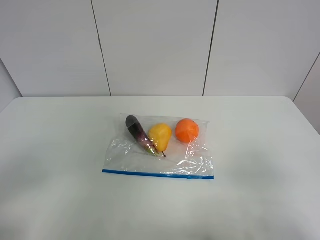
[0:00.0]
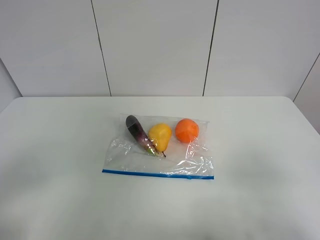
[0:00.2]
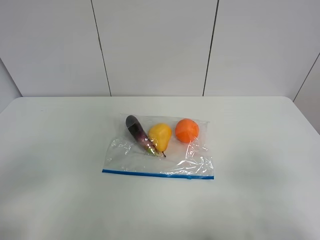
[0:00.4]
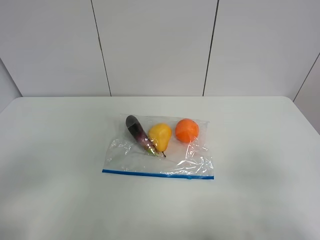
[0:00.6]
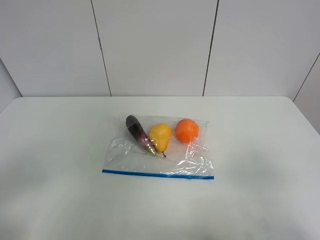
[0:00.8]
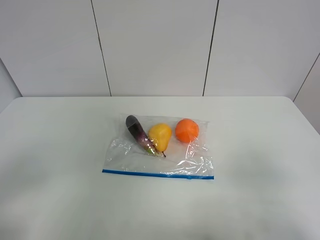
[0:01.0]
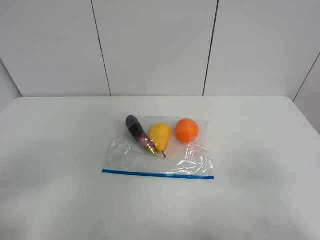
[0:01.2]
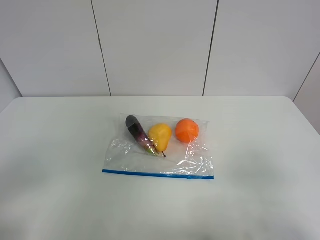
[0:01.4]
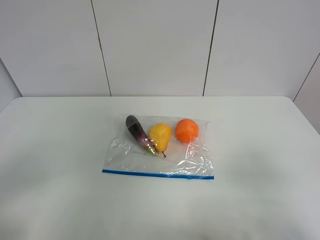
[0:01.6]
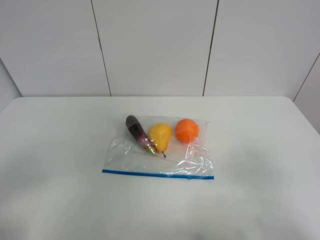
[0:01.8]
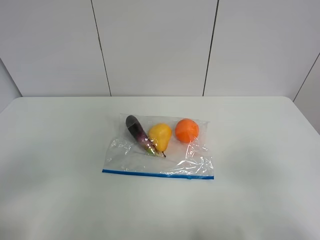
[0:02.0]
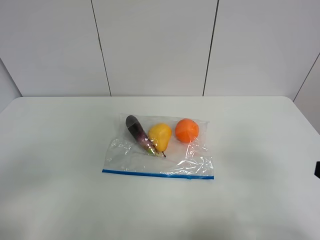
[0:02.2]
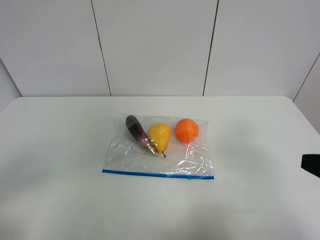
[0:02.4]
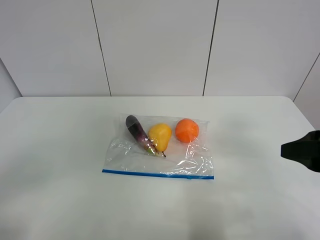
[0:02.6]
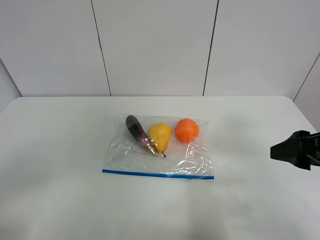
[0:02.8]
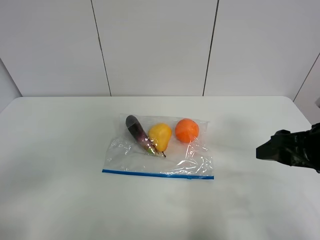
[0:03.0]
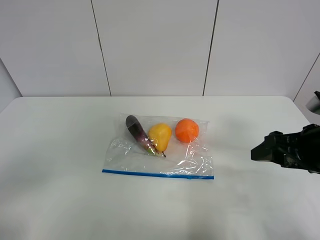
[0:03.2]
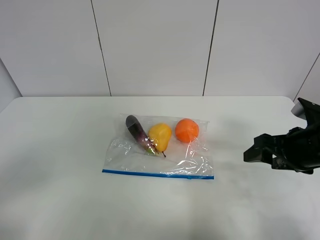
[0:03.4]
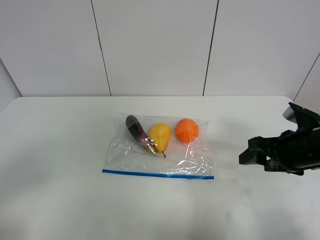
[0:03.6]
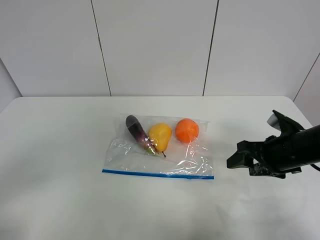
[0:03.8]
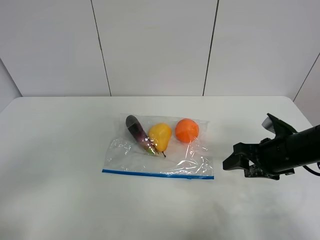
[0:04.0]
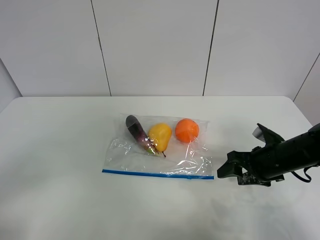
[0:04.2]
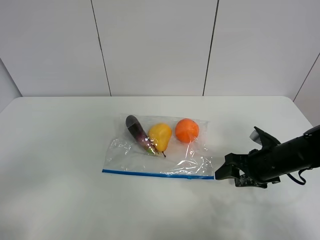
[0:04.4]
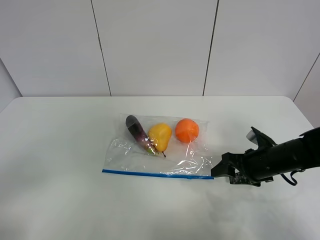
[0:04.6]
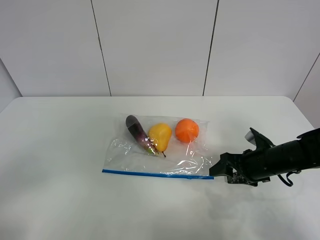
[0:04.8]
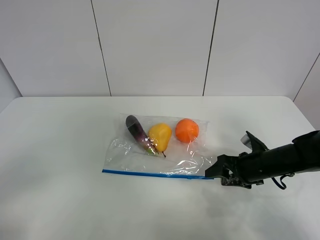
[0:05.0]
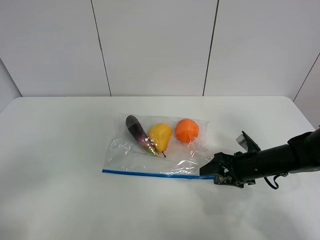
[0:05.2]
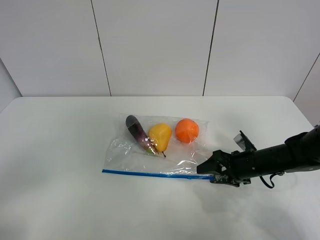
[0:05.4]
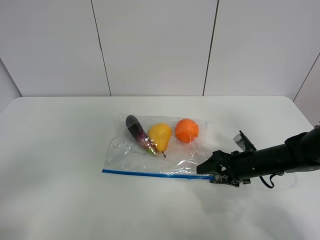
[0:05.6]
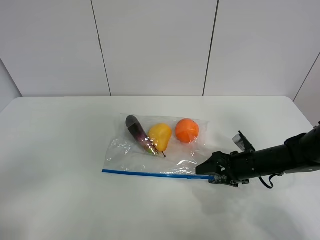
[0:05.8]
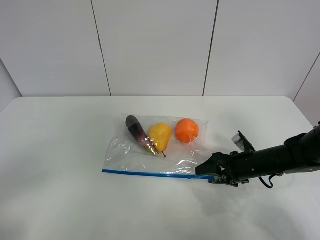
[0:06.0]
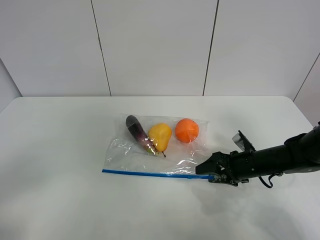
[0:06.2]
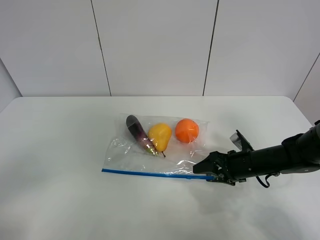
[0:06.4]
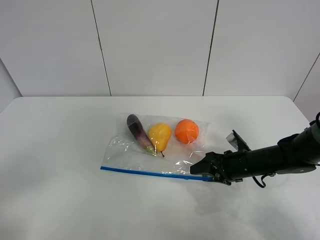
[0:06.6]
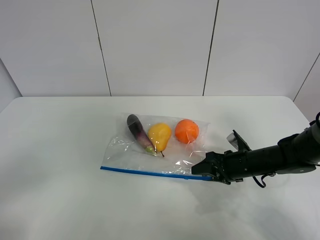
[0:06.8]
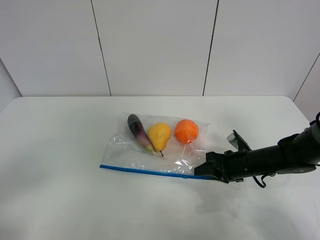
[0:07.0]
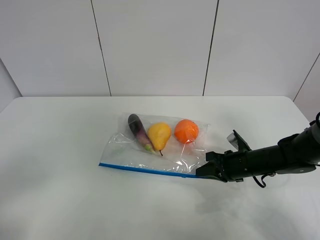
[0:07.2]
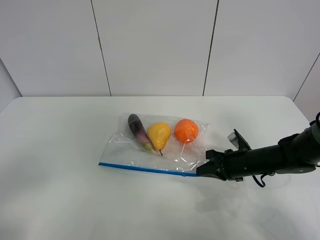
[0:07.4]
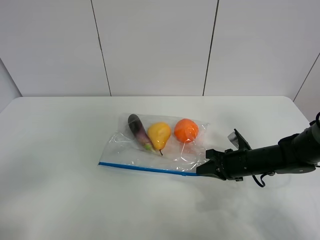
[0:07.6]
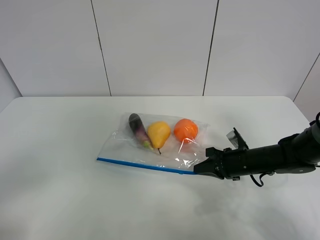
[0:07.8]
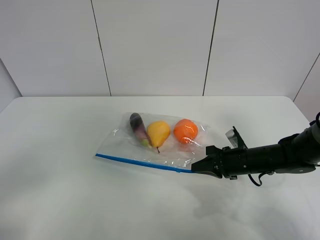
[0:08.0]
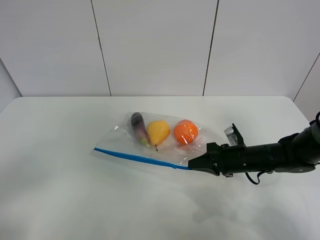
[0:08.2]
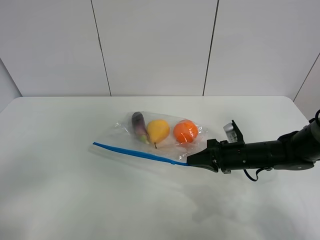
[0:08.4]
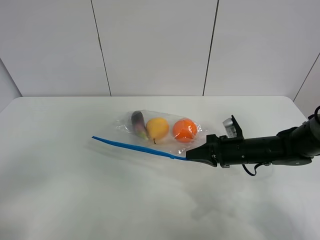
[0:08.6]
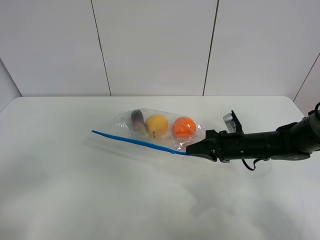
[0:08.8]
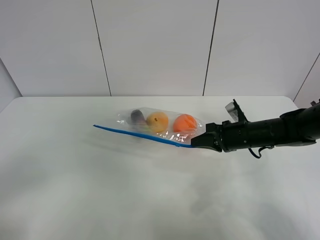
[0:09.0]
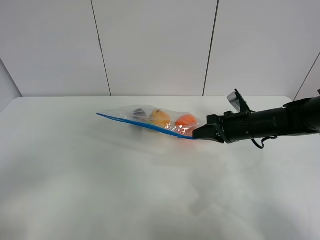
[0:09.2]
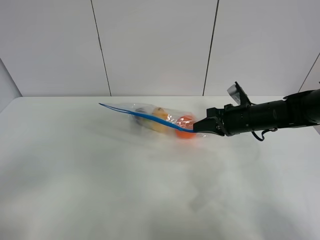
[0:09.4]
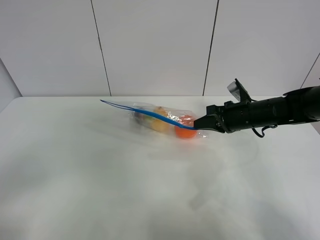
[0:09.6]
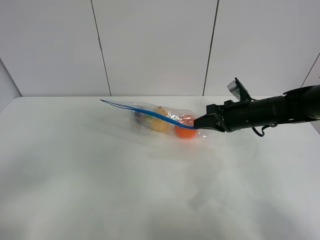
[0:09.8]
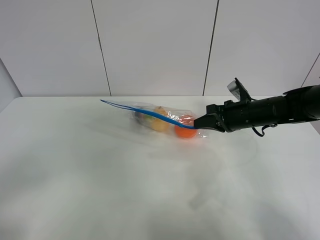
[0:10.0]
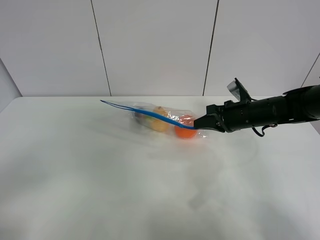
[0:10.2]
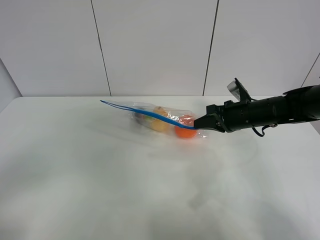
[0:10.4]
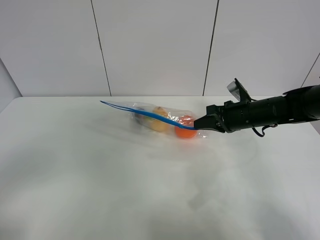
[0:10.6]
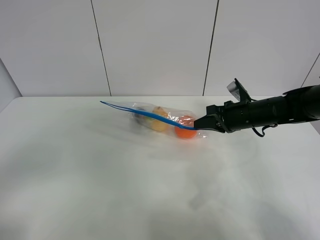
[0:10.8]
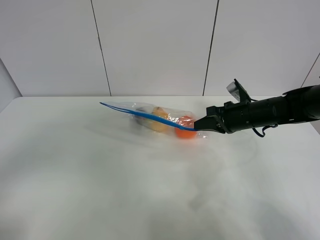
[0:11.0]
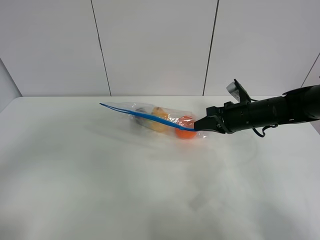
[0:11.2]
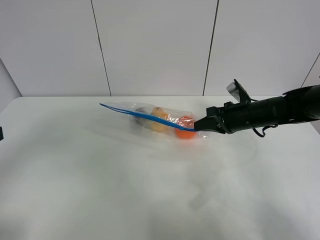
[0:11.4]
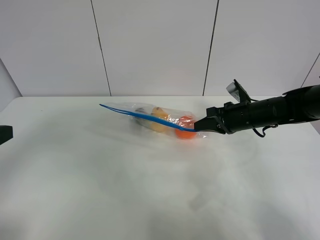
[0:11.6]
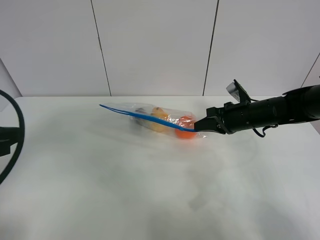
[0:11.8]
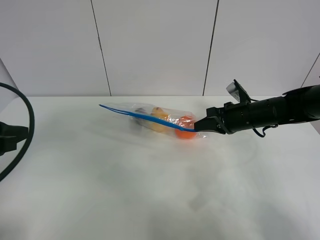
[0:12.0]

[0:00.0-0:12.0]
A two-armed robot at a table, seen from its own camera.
Step, 0:00.0 to 0:07.2: Grasp the fruit bag with right gripper.
Step, 0:07.4 to 0:09.8: Lift the fruit bag with your right gripper.
0:00.0 to 0:01.6: Both grippers stay put.
0:01.6 to 0:03.0: The right gripper heads forward, covering some 15 cm.
0:03.0 to 0:04.4: The right gripper shifts approximately 15 cm downward and forward.
0:04.4 to 0:06.0: The right gripper changes place by some 5 cm.
0:06.0 to 0:07.6: The right gripper closes up.
0:07.6 to 0:09.0: The right gripper moves upward, roughly 5 cm.
0:09.0 to 0:10.4: The grippers move only a little.
0:10.4 to 0:12.0: The left gripper heads forward, covering approximately 15 cm.

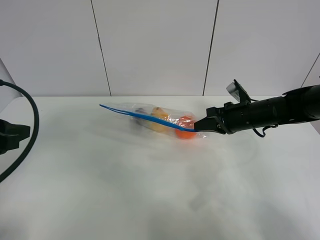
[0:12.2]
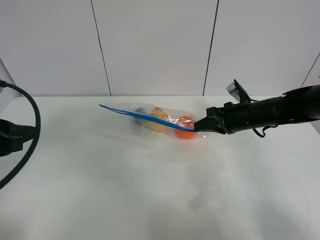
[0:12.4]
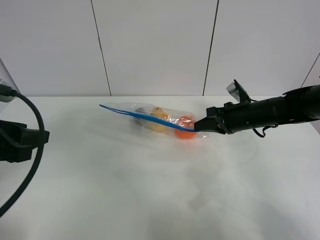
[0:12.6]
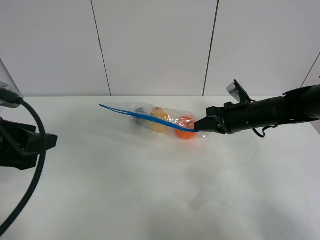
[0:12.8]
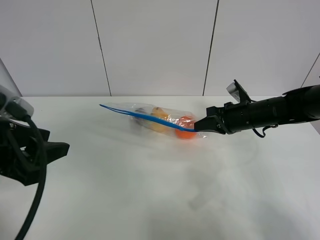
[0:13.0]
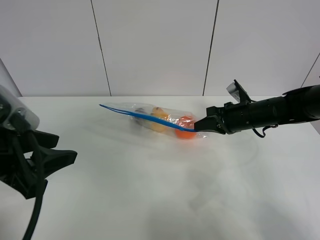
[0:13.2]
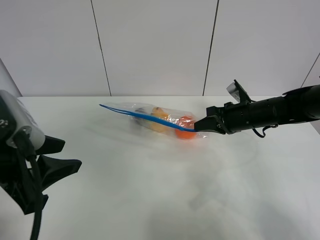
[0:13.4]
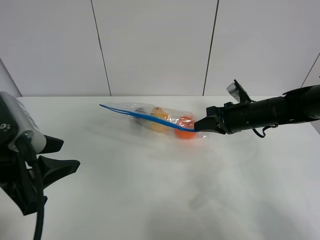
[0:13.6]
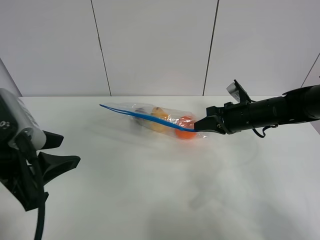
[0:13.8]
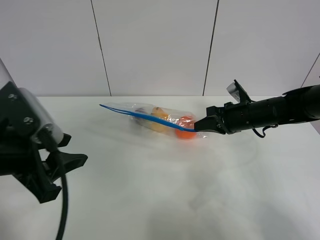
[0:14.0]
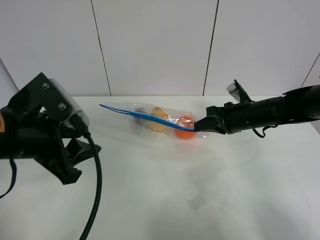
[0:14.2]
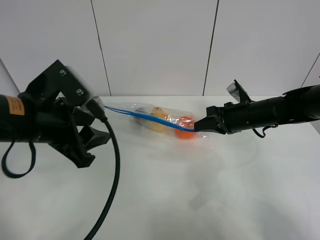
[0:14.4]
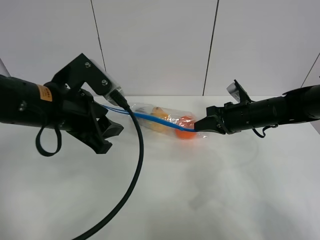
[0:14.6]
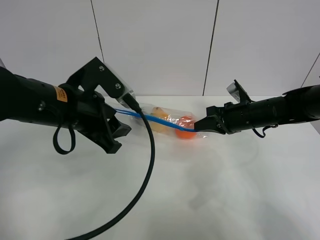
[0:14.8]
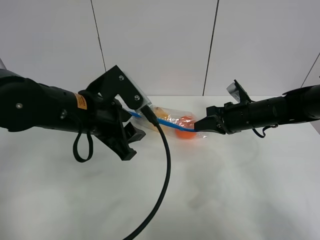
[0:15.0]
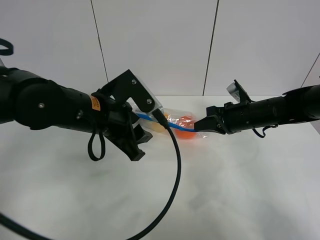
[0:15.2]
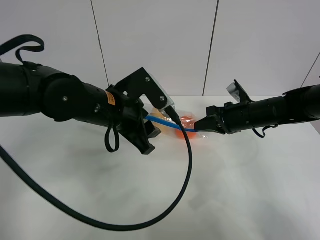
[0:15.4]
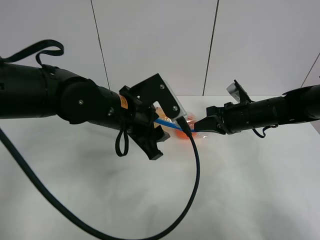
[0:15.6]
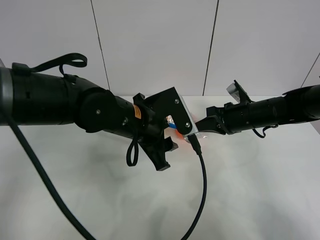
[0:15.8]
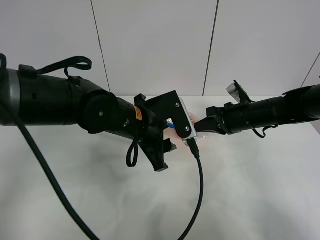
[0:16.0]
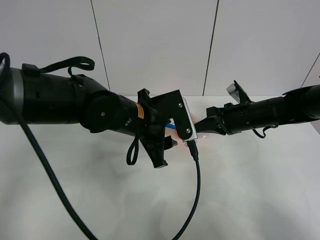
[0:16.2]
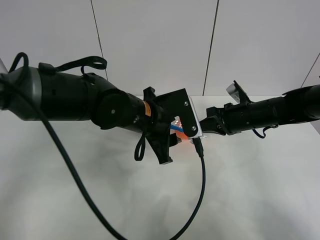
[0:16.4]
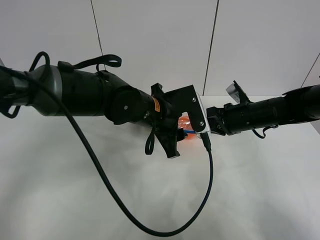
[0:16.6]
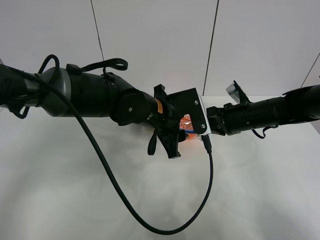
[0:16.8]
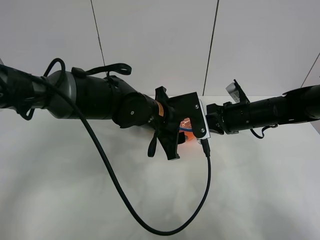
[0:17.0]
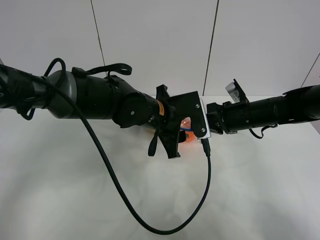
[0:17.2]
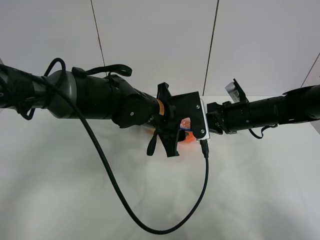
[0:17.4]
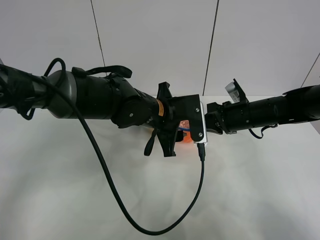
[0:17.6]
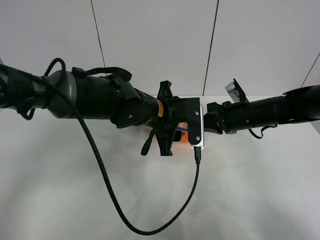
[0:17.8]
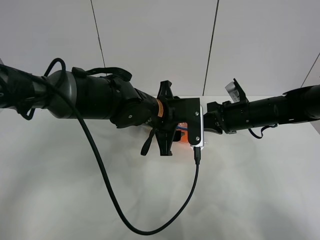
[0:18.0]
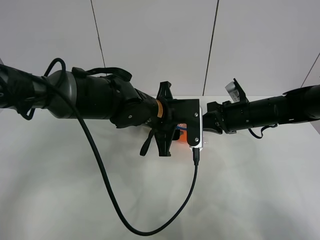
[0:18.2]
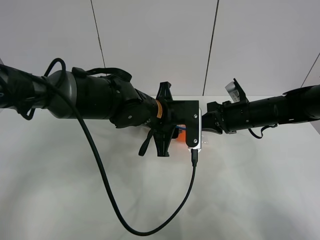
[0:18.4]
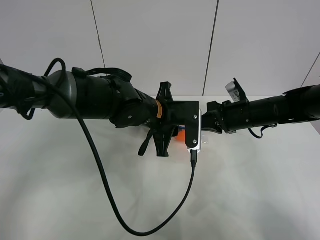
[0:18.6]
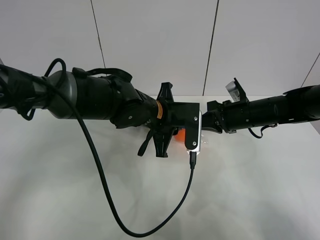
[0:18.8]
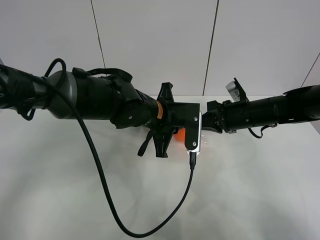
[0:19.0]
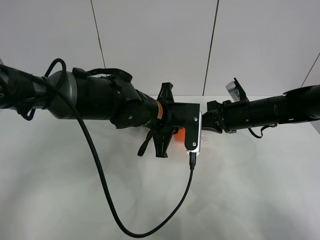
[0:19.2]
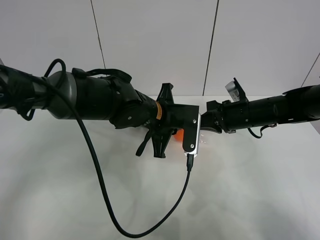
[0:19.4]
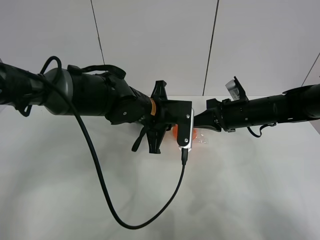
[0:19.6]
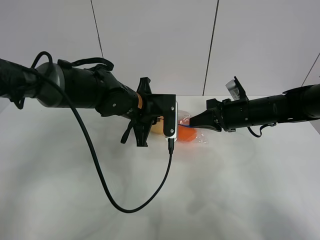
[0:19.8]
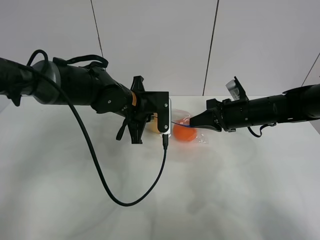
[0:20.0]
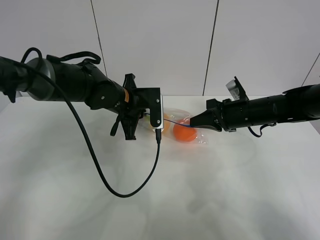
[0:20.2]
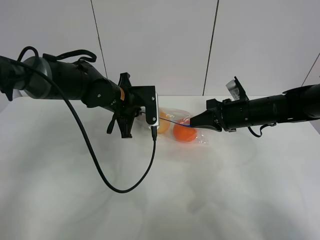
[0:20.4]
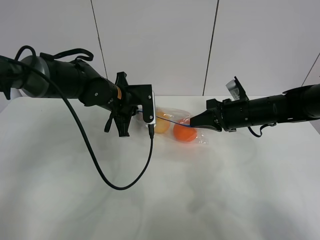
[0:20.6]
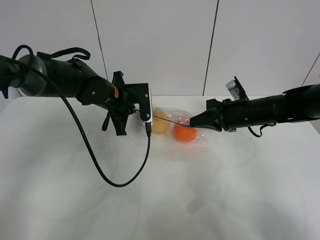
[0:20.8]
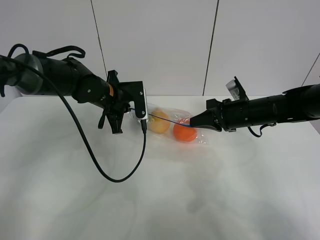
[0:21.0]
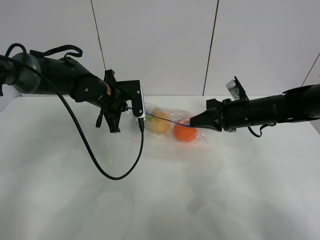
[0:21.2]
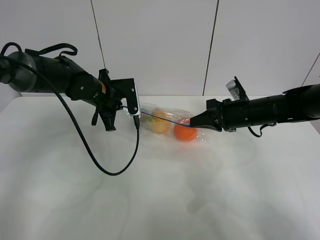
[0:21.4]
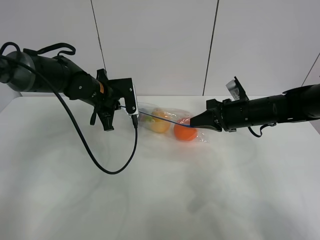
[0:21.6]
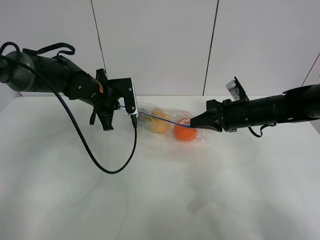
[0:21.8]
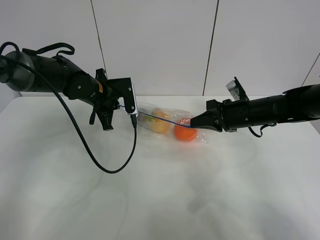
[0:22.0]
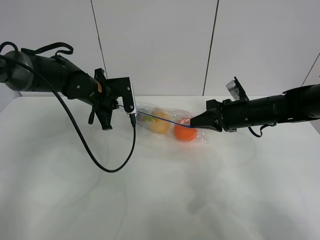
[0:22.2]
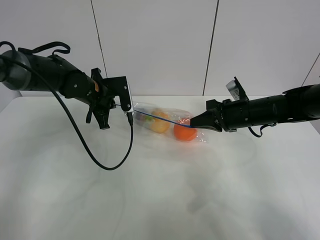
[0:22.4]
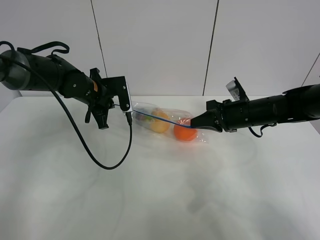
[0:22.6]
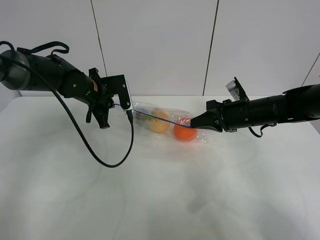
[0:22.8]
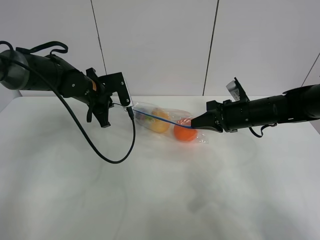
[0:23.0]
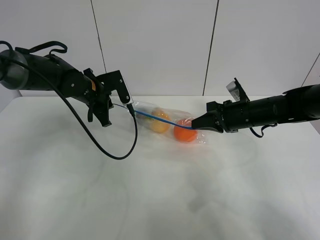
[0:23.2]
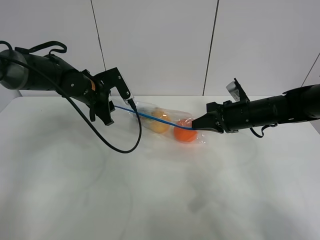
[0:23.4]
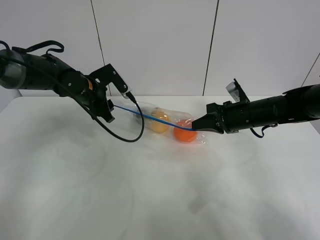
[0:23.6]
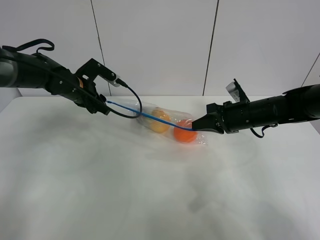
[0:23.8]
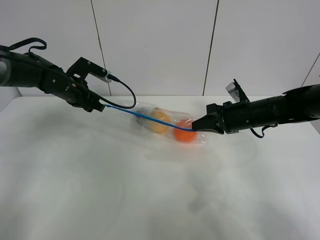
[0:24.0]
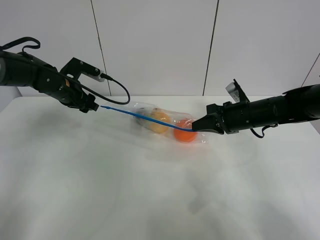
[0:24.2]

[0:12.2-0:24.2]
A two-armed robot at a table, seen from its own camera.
Step, 0:12.2 to 0:23.6: Pull the fruit bag with left gripper.
0:12.2 to 0:13.8: The left gripper shifts about 10 cm to the right.
0:13.8 to 0:15.2: The left gripper moves forward and to the right, some 15 cm.
0:15.2 to 0:16.6: The left gripper travels to the right by about 10 cm.
0:16.6 to 0:18.2: There are only small adjustments of the grippers.
0:18.2 to 0:19.8: The left gripper ends up about 5 cm from where it was, and closes its fingers.
0:19.8 to 0:21.2: The left gripper is displaced to the left by some 10 cm.
0:21.2 to 0:22.6: The grippers stay close to where they were, moving slightly.
0:22.6 to 0:24.2: The left gripper heads to the left, covering about 10 cm, and opens up.
